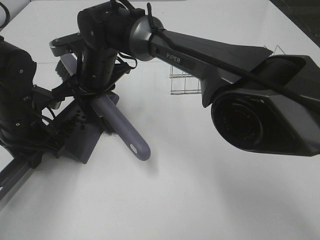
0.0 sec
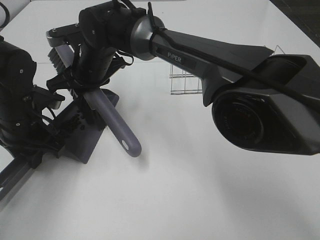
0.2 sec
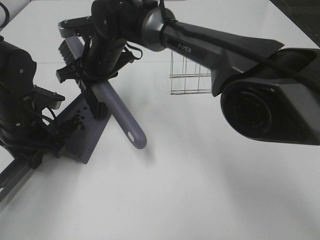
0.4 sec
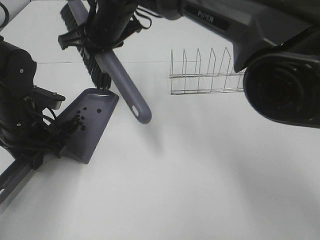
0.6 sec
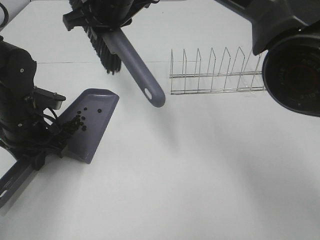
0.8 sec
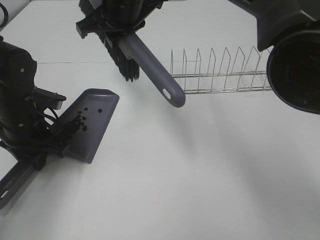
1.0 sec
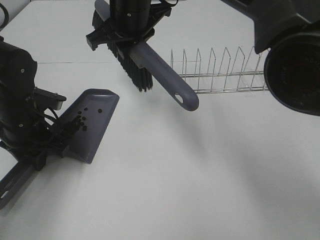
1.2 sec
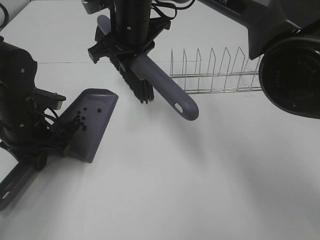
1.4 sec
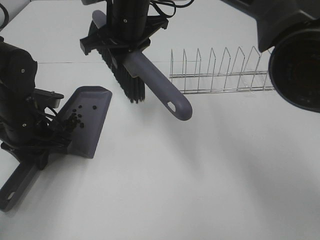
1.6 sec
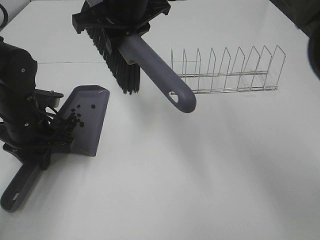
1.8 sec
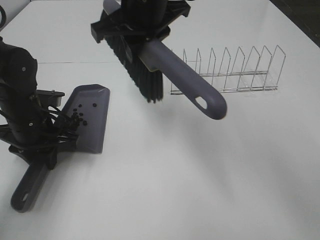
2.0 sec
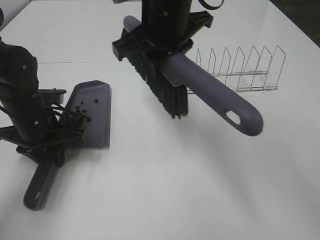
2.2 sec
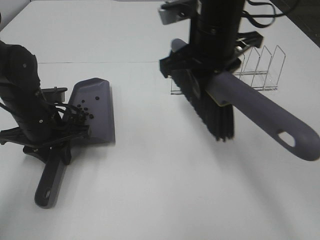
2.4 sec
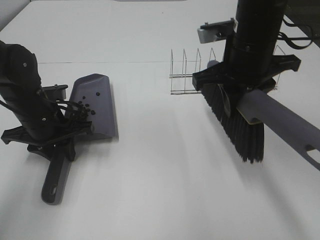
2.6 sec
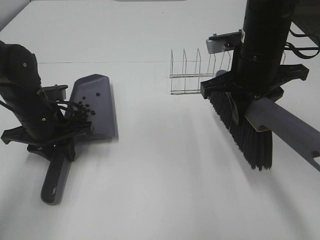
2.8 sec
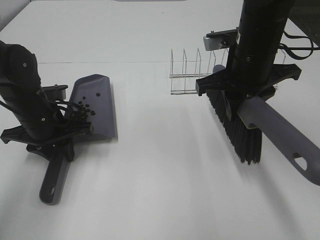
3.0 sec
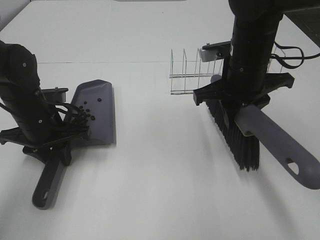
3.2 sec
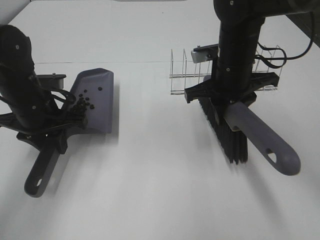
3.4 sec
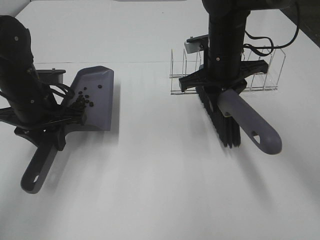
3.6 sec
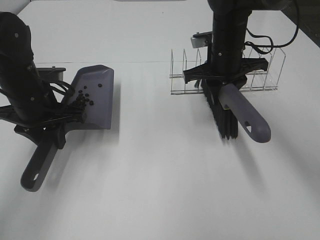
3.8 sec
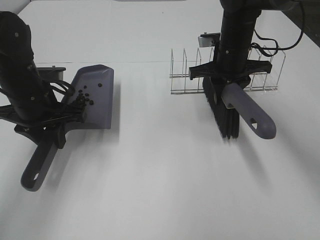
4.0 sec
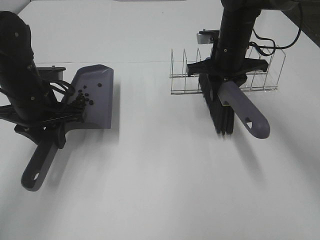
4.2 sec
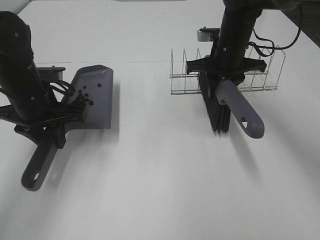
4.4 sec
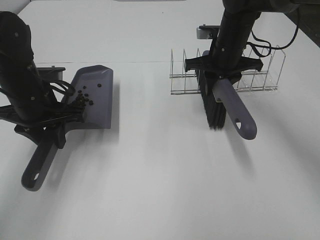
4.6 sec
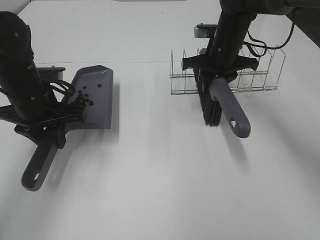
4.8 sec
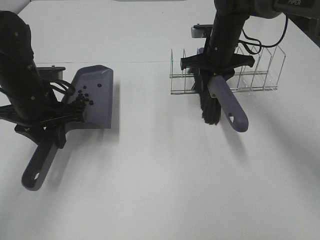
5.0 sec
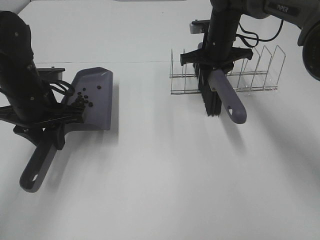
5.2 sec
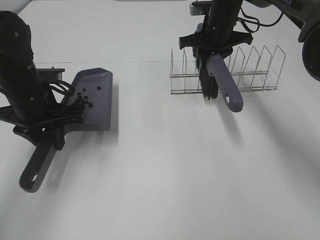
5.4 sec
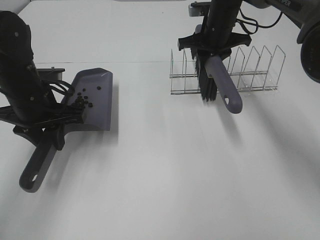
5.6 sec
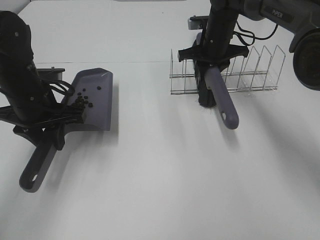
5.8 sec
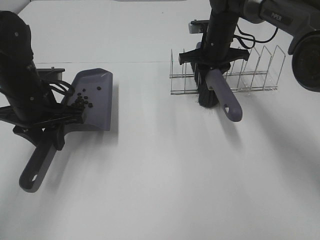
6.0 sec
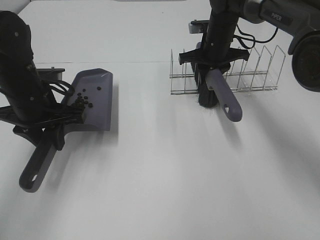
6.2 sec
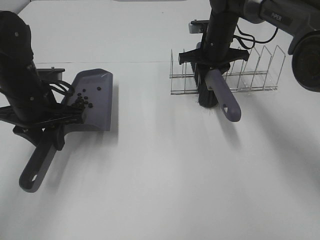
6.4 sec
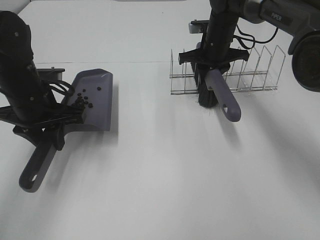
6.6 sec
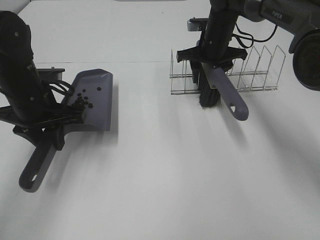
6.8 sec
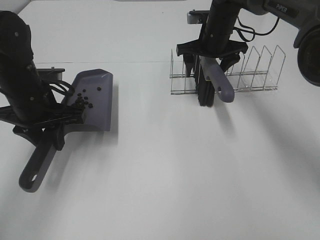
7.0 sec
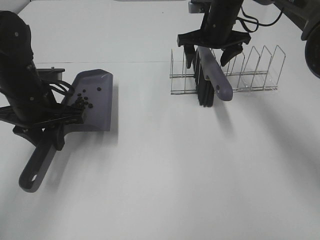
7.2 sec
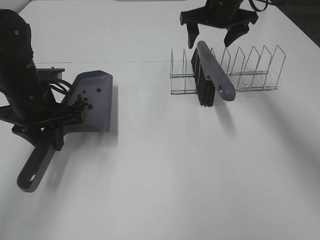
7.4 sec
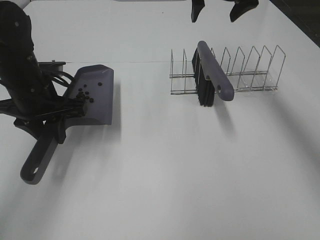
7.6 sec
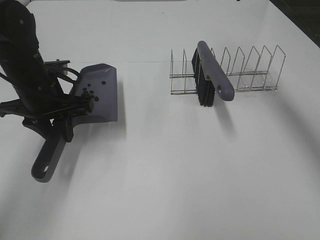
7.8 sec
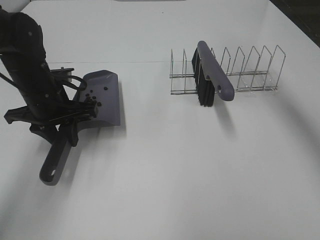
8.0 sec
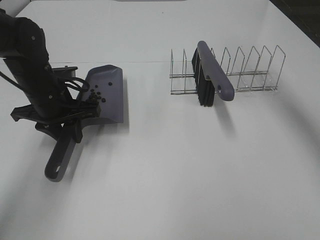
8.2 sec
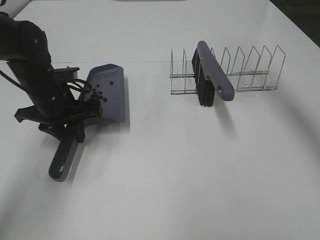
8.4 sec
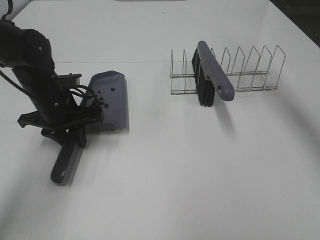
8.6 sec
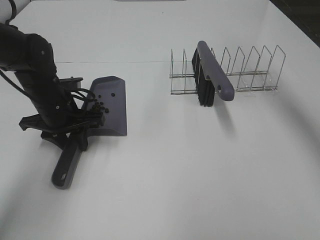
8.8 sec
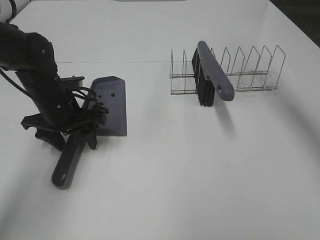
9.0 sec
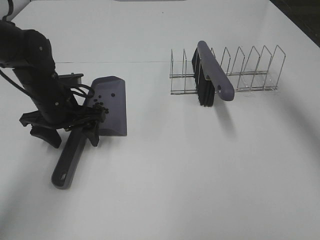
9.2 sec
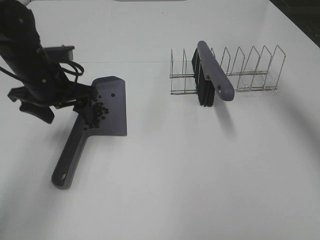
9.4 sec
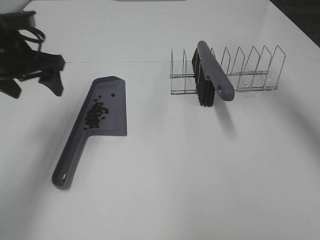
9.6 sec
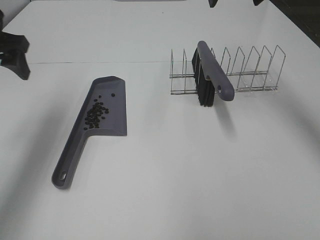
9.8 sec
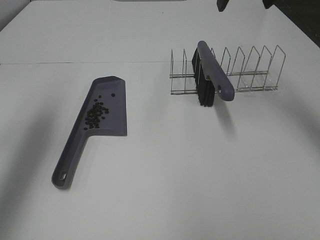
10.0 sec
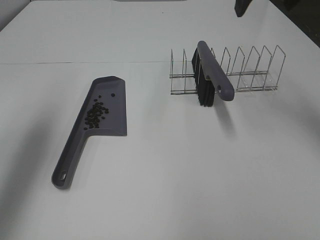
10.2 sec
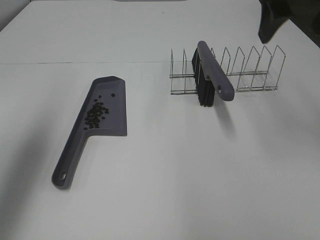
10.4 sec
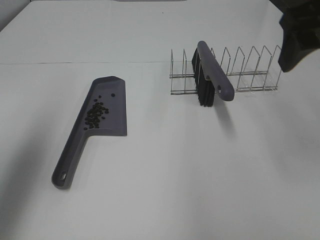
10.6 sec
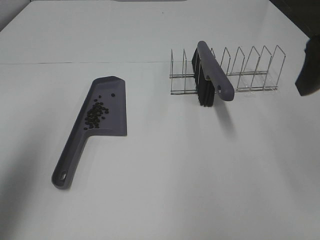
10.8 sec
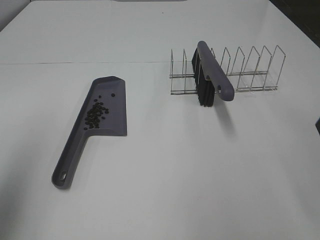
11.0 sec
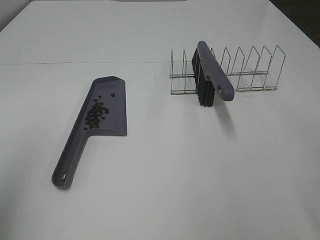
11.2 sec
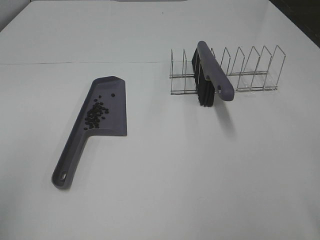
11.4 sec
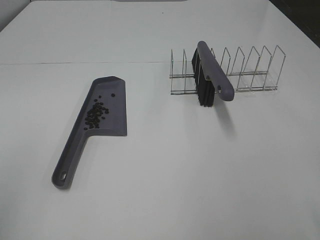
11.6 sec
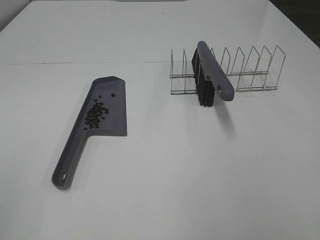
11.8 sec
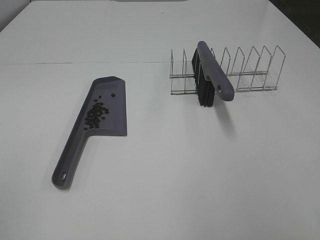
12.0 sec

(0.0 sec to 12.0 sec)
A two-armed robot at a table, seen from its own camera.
Task of the whole recording: Sweep Coffee Bean.
Step, 0.4 sec - 7.2 sec: Right hand:place the broom on the rack.
Step, 7.4 sec - 9.2 sec: Left hand:place the dustpan on the table.
0.0 sec - 1.6 sec: The right gripper travels upward and to the right by approximately 10 cm.
1.6 sec - 3.0 sec: The right gripper is displaced to the right and backward by approximately 20 cm.
3.0 sec - 4.4 sec: The right gripper shifts some 15 cm forward and downward.
4.4 sec - 6.0 sec: The right gripper travels forward by about 5 cm.
6.0 sec - 7.6 sec: The right gripper travels upward by roughly 15 cm, and opens.
7.6 sec - 9.0 sec: The right gripper heads upward, covering roughly 5 cm. The left gripper travels downward by some 5 cm, and opens.
9.0 sec - 10.4 sec: The right gripper is displaced backward by about 15 cm. Meanwhile the left gripper shifts approximately 30 cm upward and to the left.
10.4 sec - 12.0 sec: Both grippers travel together backward, roughly 25 cm.

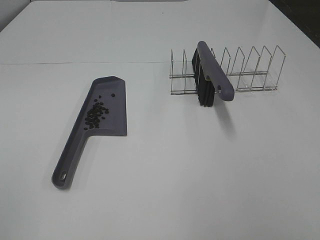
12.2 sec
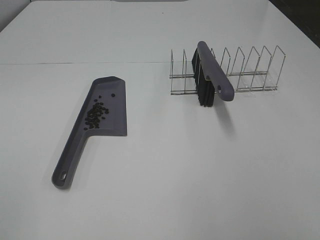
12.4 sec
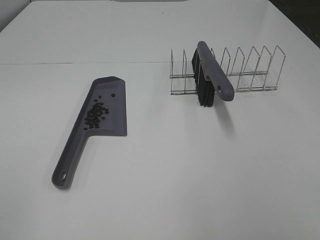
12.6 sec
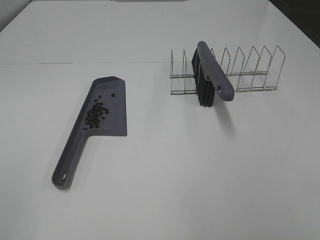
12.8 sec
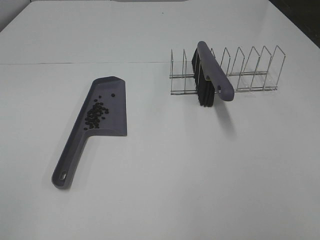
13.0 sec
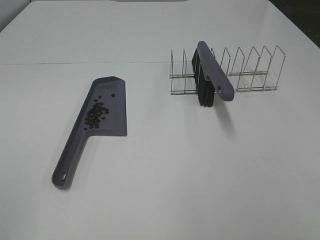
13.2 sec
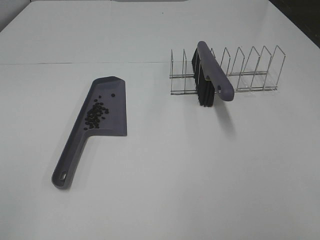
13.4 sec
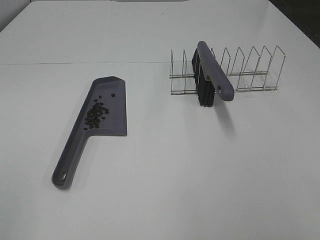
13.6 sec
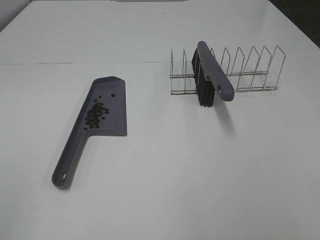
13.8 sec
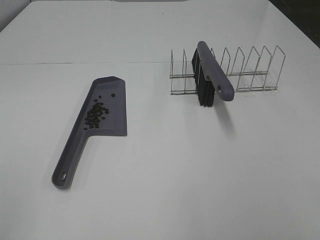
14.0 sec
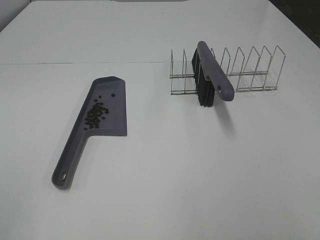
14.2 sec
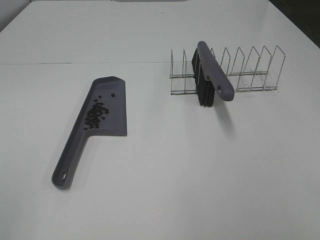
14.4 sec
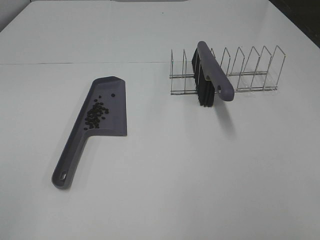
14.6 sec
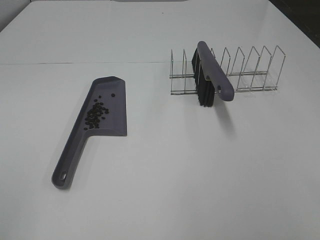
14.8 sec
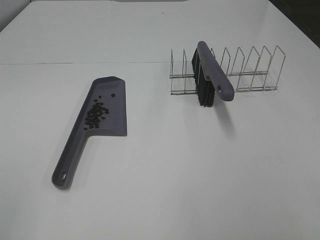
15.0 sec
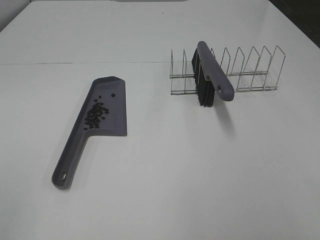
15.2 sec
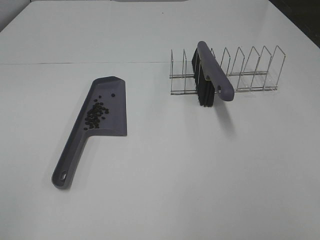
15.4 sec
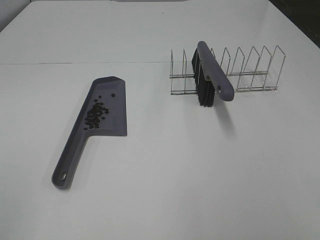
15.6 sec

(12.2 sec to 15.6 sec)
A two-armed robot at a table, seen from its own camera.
Task of the whole recording: Sweep Coffee Bean.
13.8 sec - 15.6 sec: Neither gripper changes place.

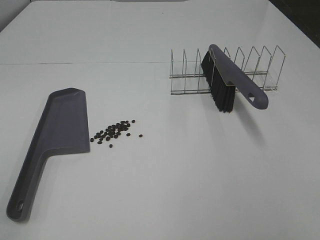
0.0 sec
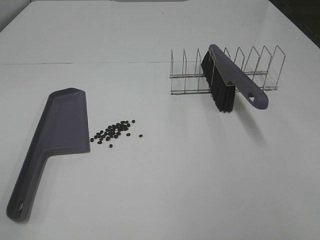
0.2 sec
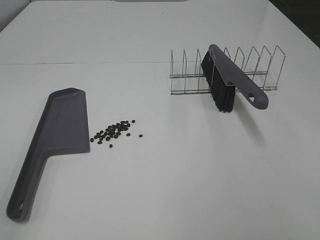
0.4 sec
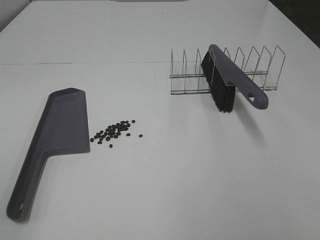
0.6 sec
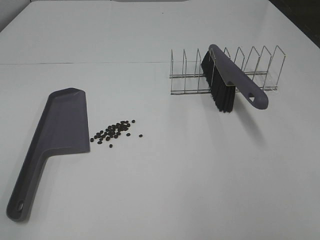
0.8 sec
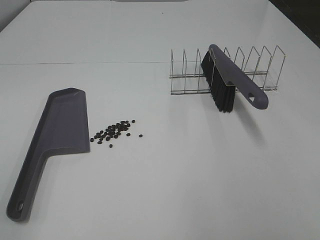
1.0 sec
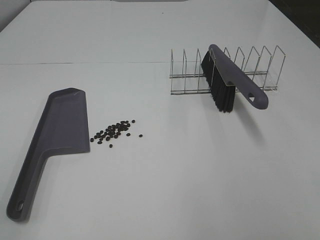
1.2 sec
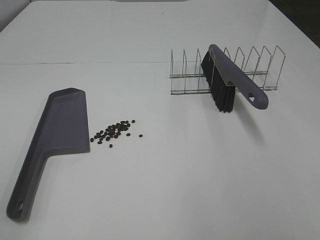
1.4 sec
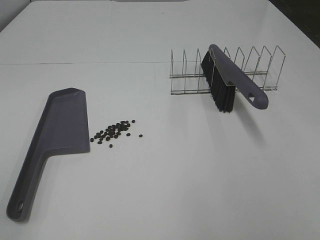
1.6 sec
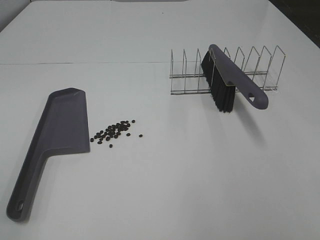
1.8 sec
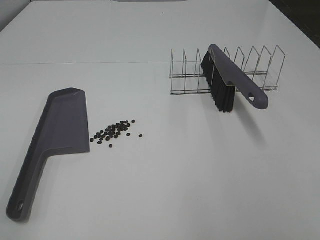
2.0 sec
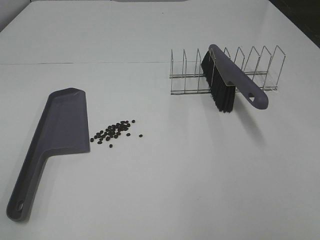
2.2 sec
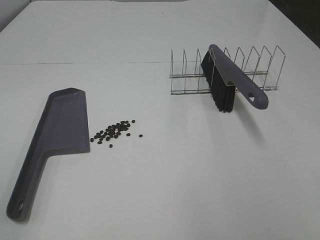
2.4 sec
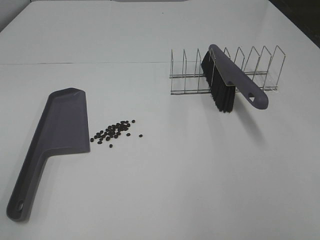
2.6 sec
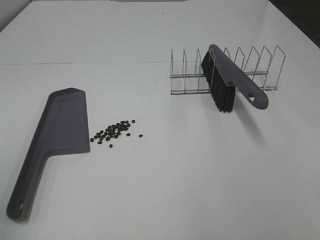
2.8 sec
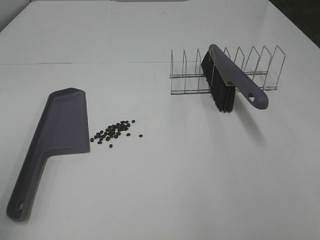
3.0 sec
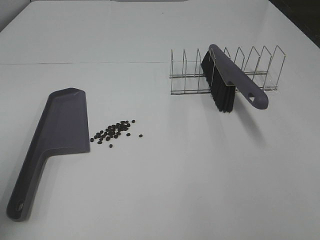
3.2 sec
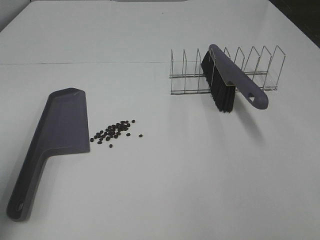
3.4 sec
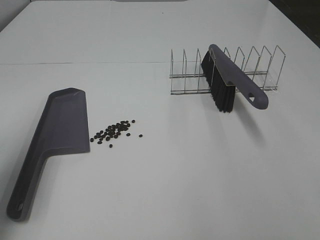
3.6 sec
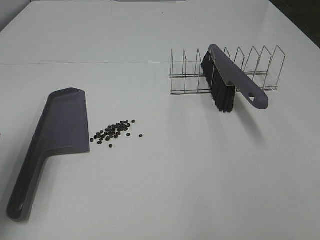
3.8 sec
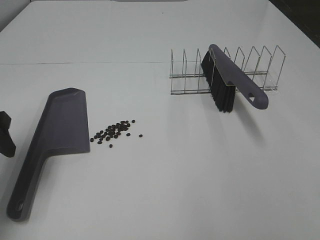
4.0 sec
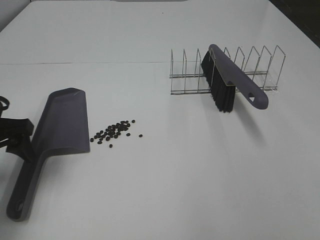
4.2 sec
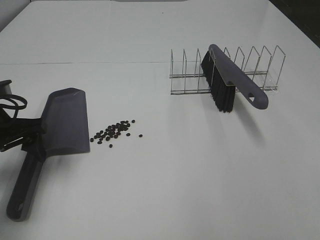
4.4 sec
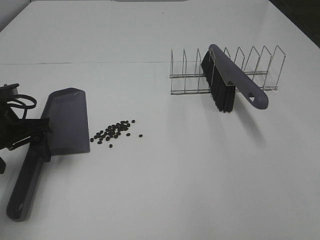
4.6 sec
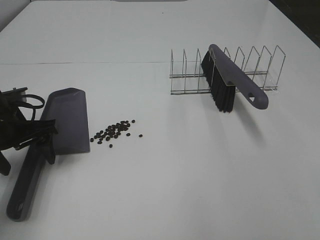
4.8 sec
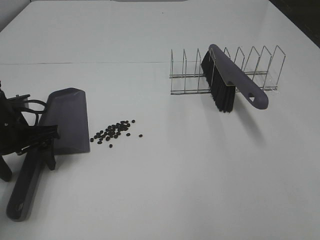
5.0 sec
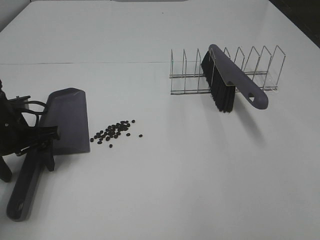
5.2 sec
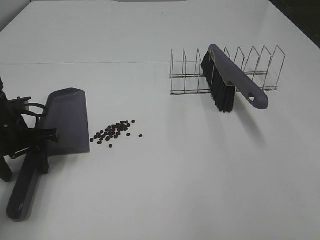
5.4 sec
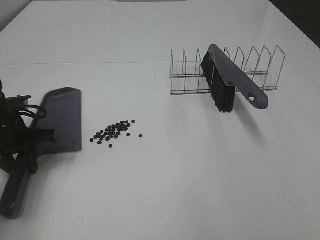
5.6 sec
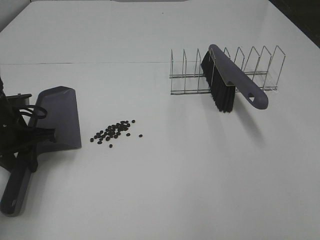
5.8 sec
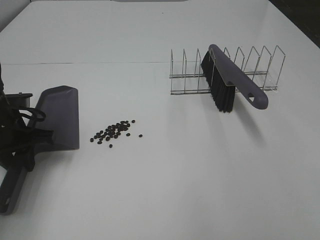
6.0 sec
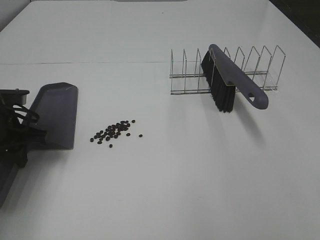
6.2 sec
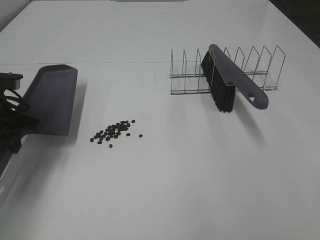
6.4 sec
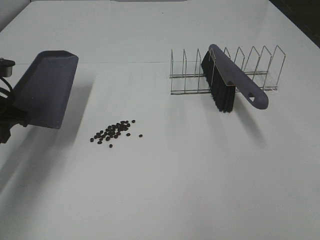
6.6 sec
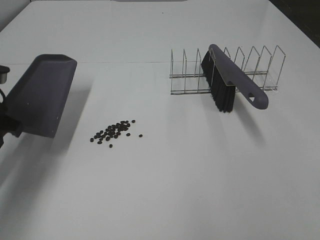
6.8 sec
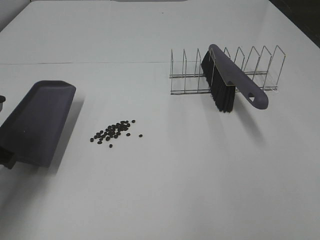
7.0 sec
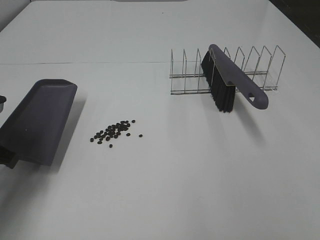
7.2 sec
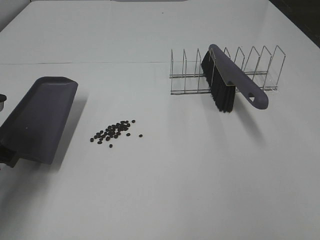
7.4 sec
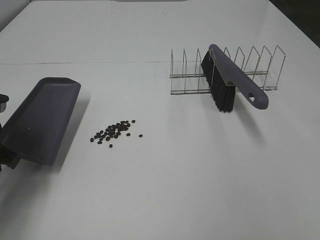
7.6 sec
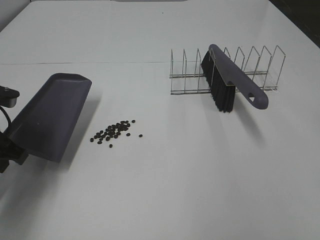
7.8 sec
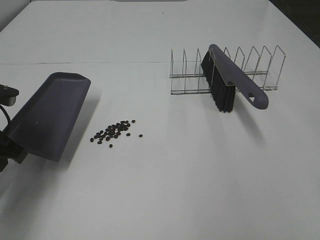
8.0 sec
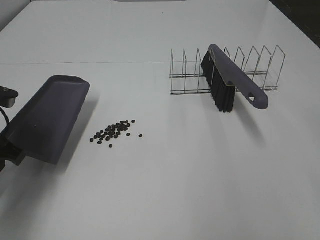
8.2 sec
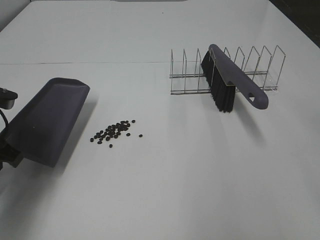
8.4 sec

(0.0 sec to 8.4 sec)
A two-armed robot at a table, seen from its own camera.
Task of the whole recording: Sweep Coffee Bean.
Step, 0.0 sec - 5.6 sec: Left hand: grab the dustpan.
2.8 sec - 4.2 sec: The left gripper is displaced forward and downward by approximately 25 cm.
4.2 sec - 5.6 sec: The left gripper shifts some 5 cm downward, and closes its fingers.
5.6 sec - 7.0 sec: The left gripper goes about 5 cm backward.
